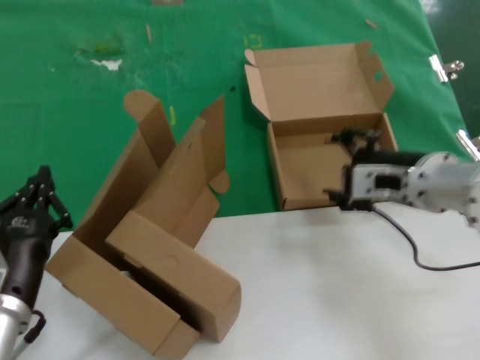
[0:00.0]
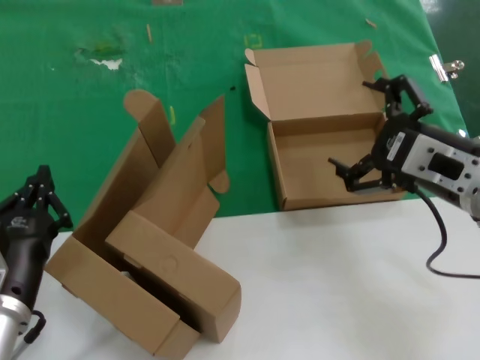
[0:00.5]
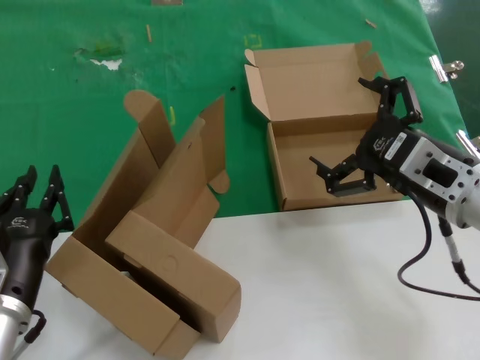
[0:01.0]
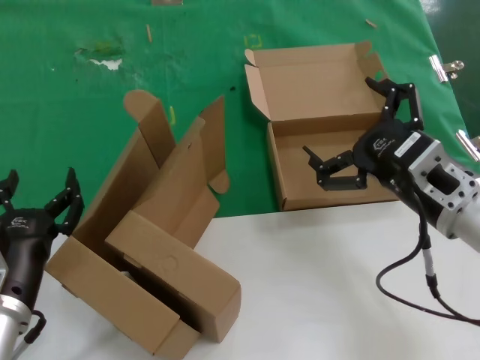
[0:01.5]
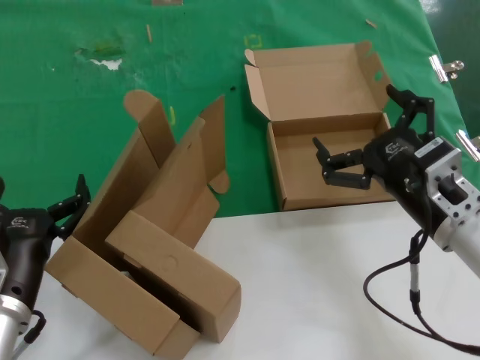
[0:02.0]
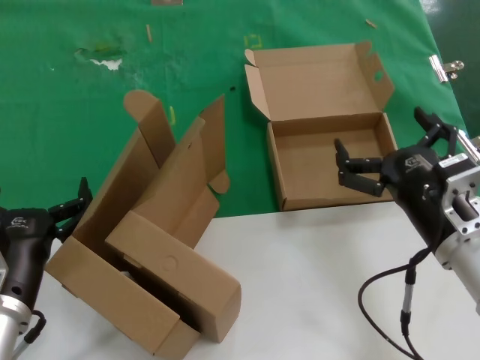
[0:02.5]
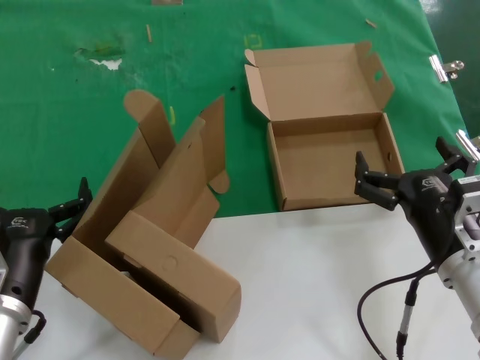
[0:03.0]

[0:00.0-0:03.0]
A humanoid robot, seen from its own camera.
Task of the whole recording: pick up the paper box and put it at the back.
0:00.0 to 0:01.5: The right hand goes some 5 cm backward.
0:01.5 to 0:03.0: The right hand is displaced downward by about 10 cm.
